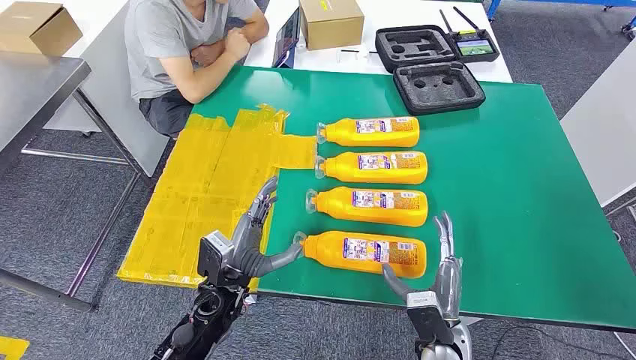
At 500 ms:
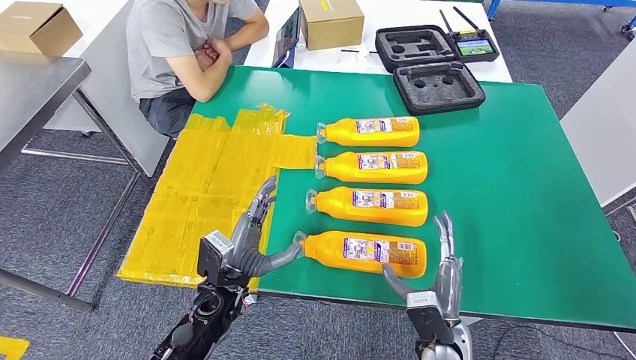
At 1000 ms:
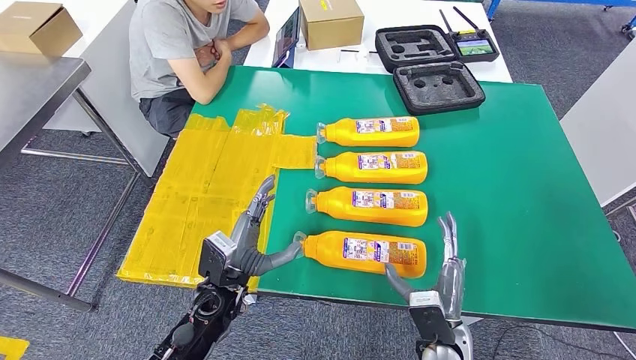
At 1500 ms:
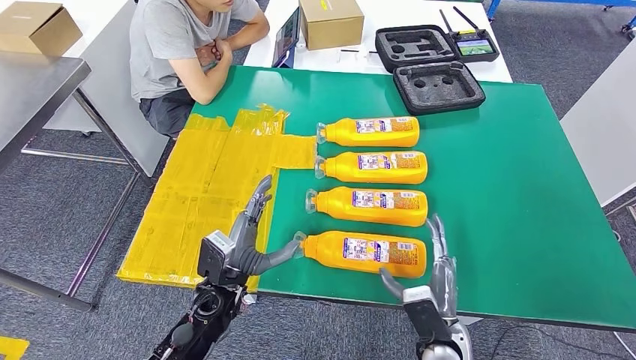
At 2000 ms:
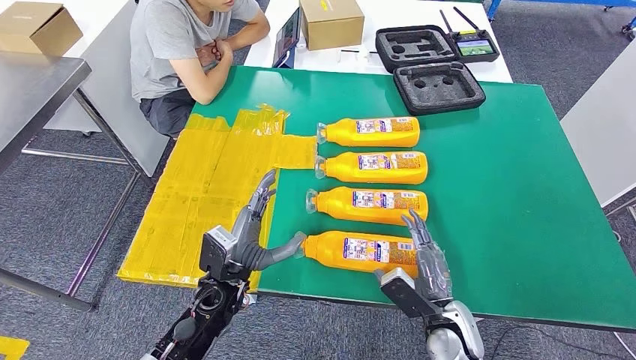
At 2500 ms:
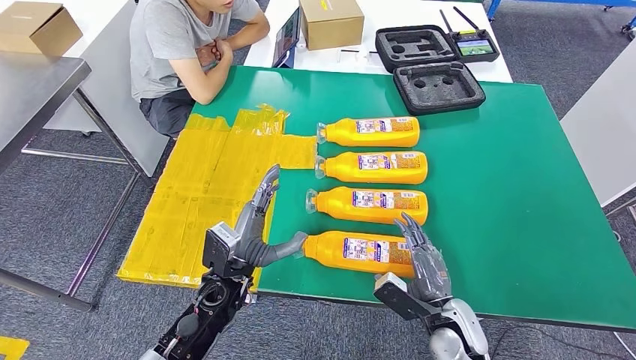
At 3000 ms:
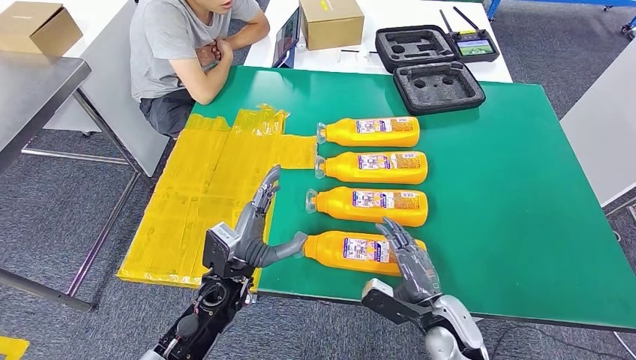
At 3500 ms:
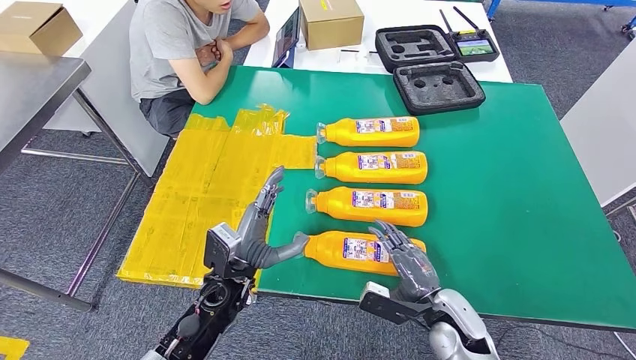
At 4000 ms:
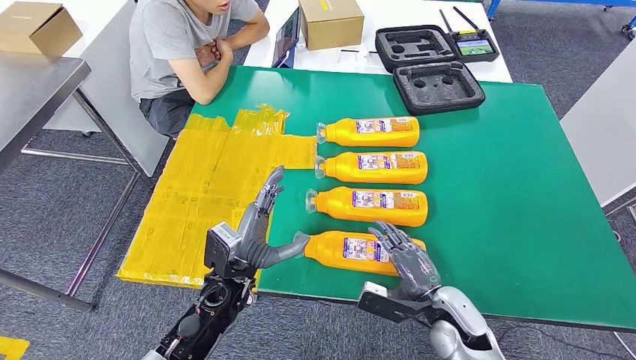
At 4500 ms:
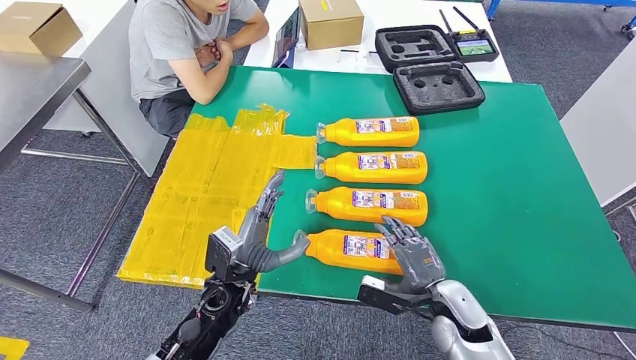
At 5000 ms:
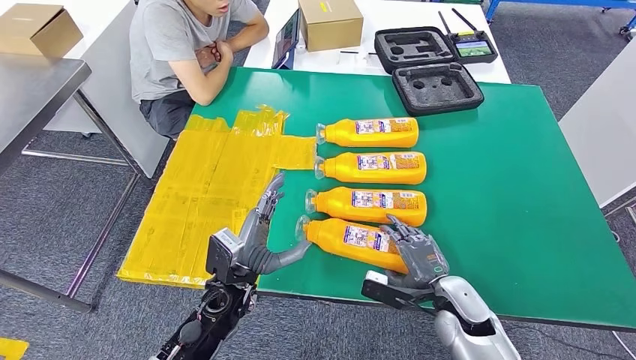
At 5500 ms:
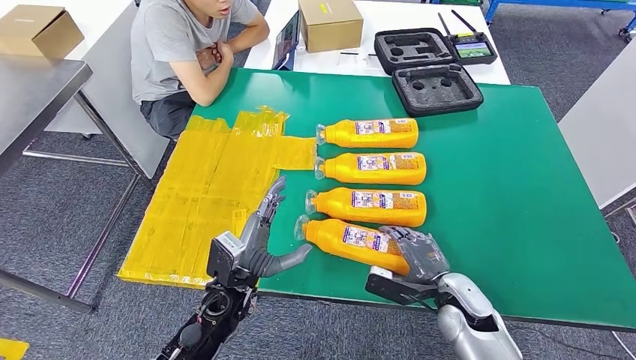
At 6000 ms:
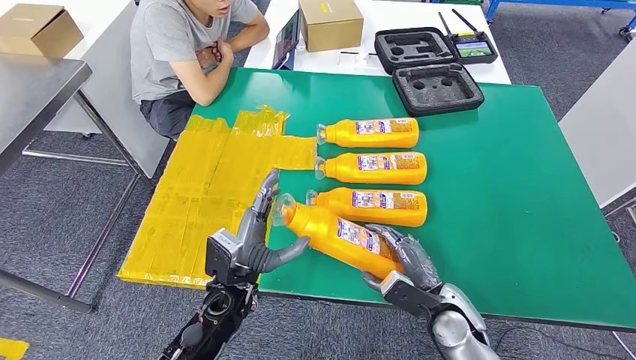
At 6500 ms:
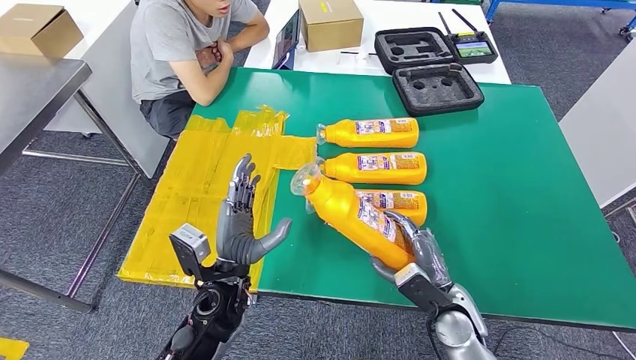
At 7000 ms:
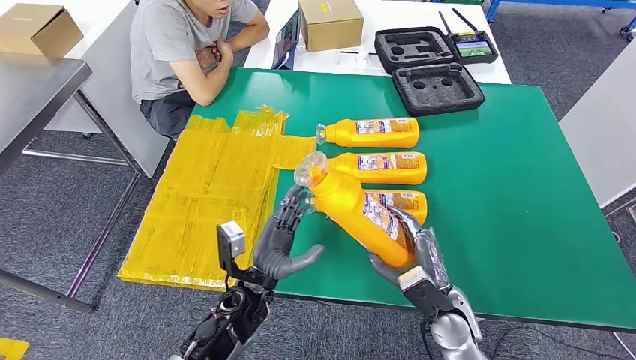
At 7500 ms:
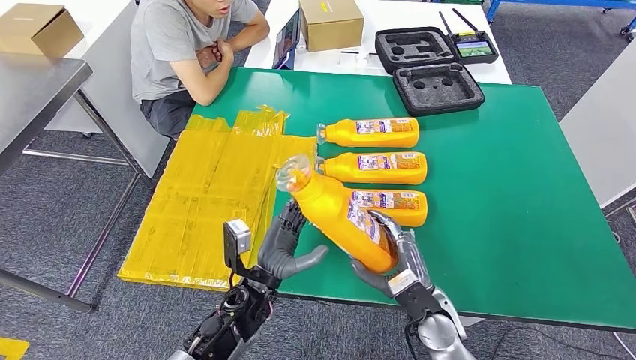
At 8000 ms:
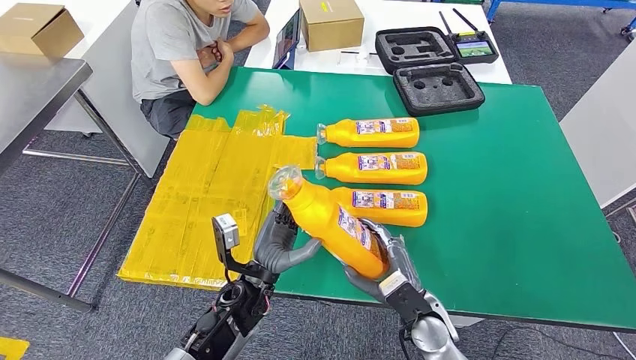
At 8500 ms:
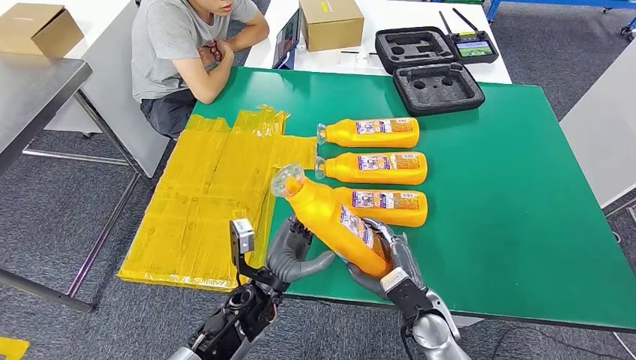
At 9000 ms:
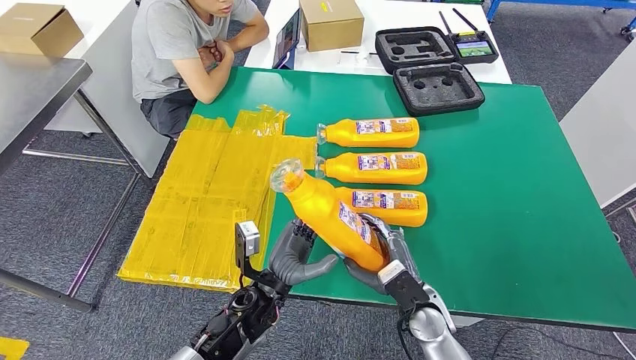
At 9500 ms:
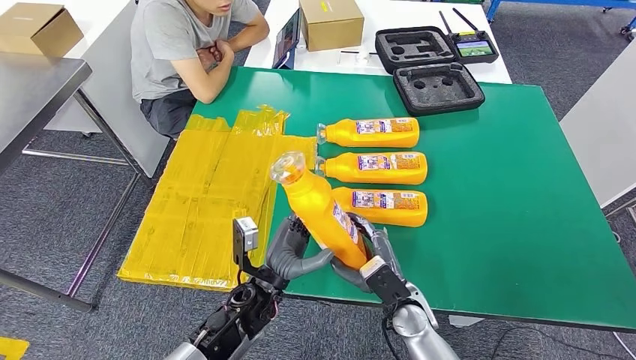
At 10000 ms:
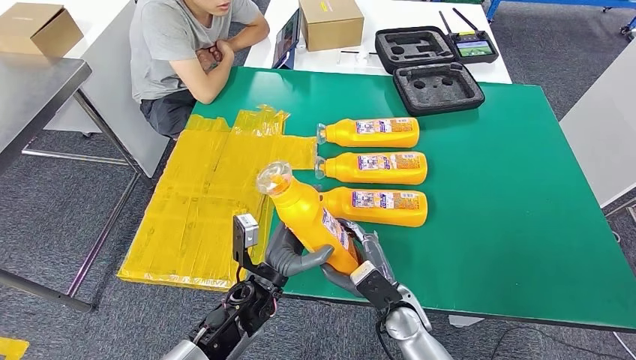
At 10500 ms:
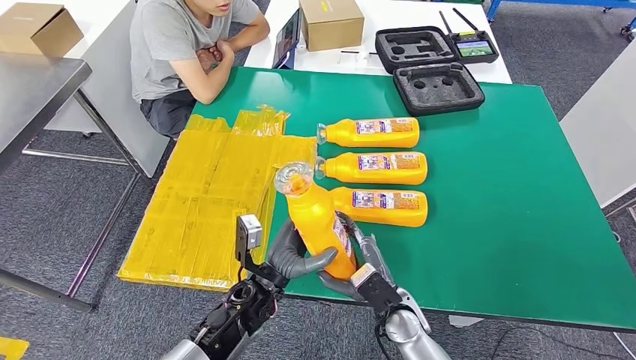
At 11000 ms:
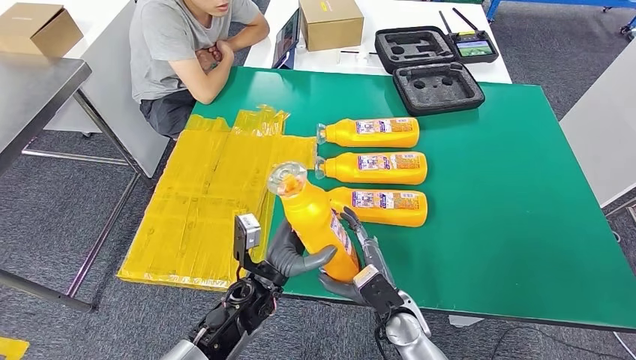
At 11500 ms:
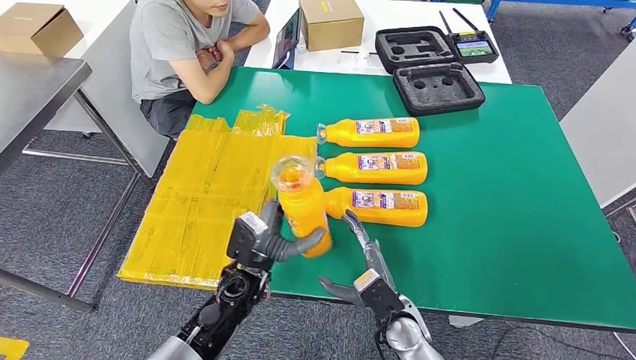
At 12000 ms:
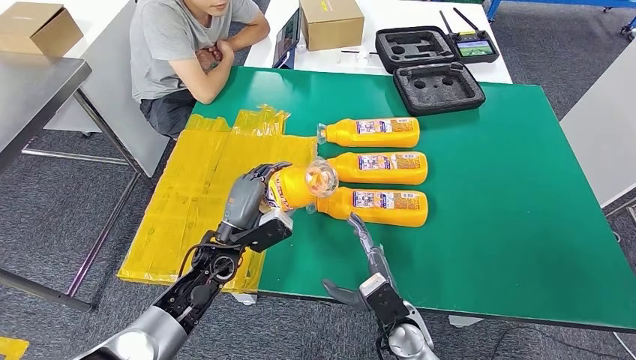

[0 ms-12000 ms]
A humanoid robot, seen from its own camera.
Step, 0 ms to 9500 ms: Take the fast-moving consumer goods bottle from the table.
8000 ms to 10000 ms: The hands make only small movements.
10000 ms to 12000 ms: The left hand travels to the left and forward by about 10 cm.

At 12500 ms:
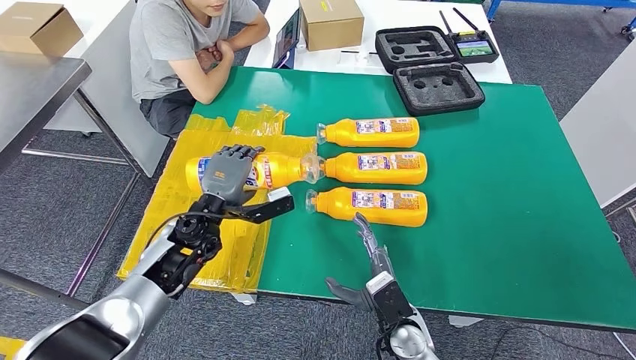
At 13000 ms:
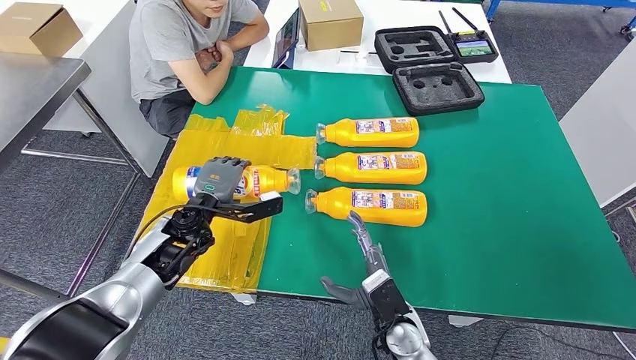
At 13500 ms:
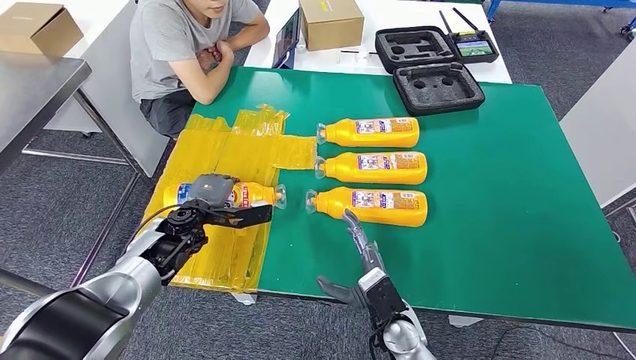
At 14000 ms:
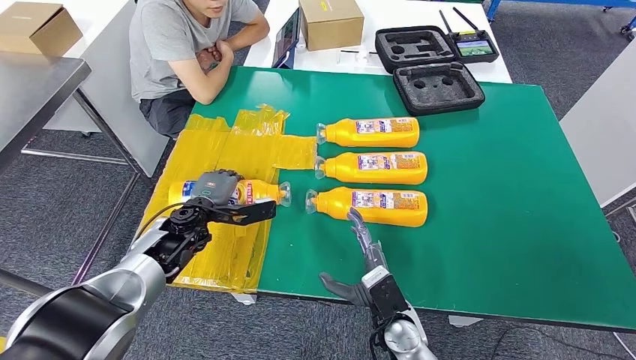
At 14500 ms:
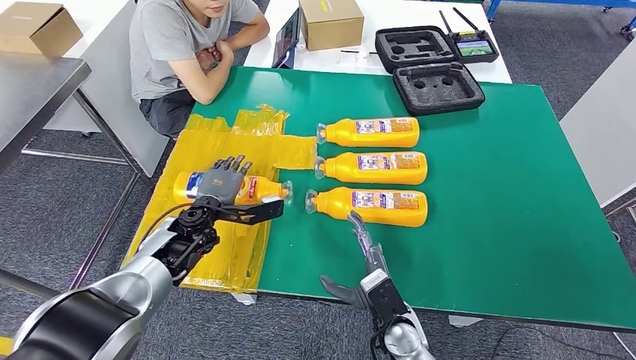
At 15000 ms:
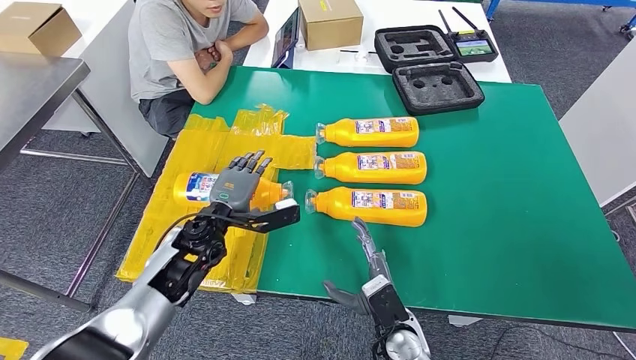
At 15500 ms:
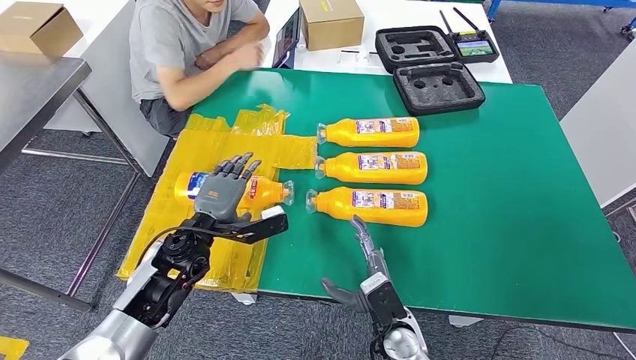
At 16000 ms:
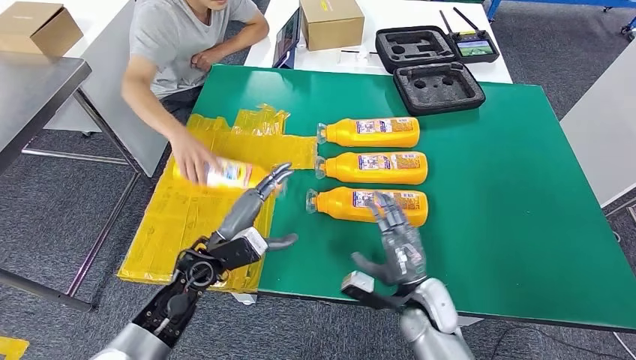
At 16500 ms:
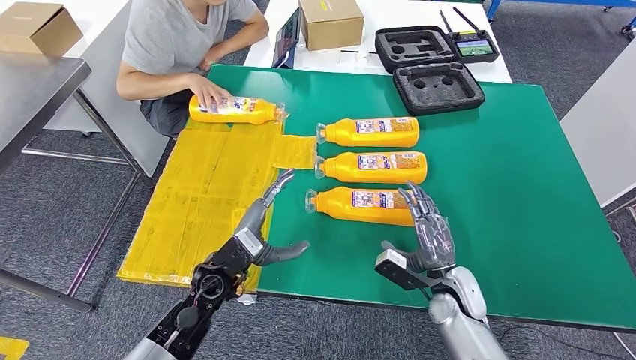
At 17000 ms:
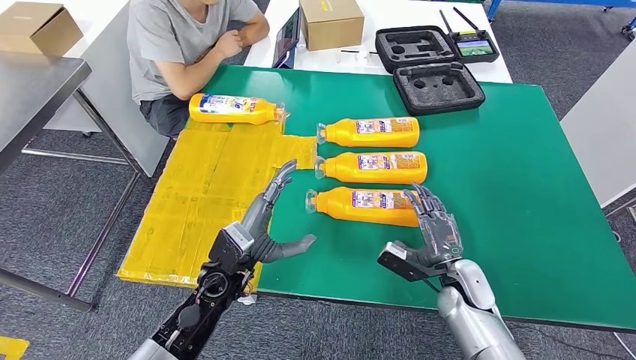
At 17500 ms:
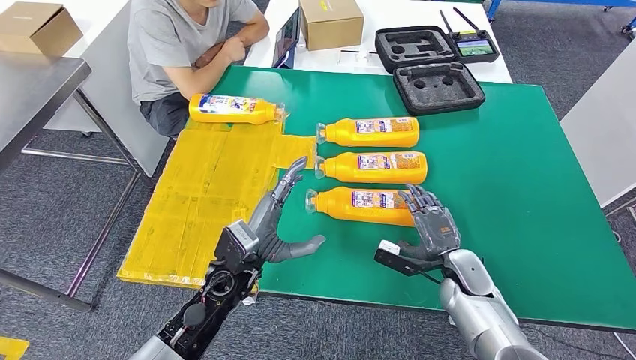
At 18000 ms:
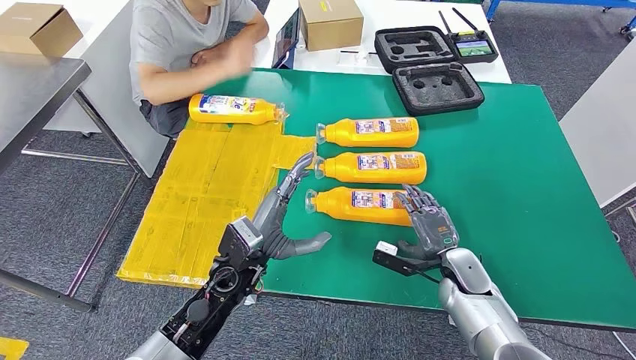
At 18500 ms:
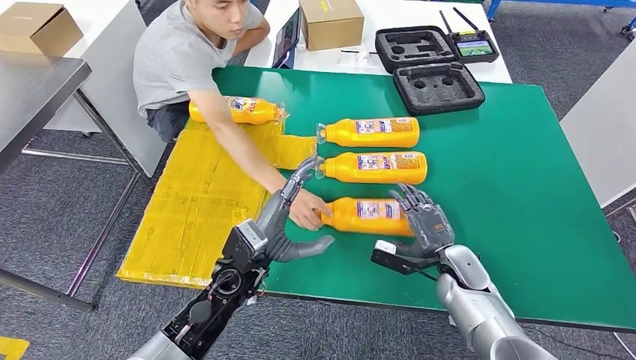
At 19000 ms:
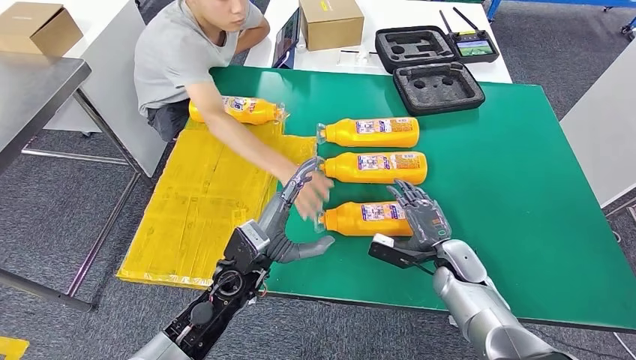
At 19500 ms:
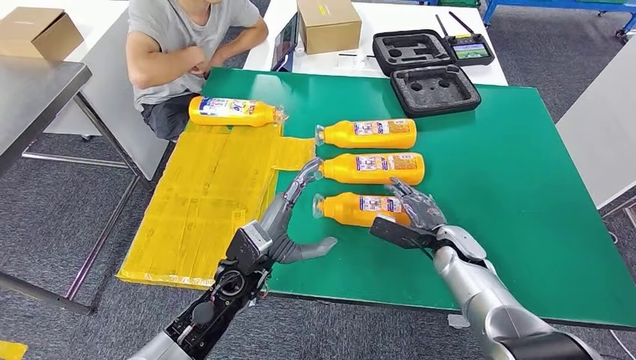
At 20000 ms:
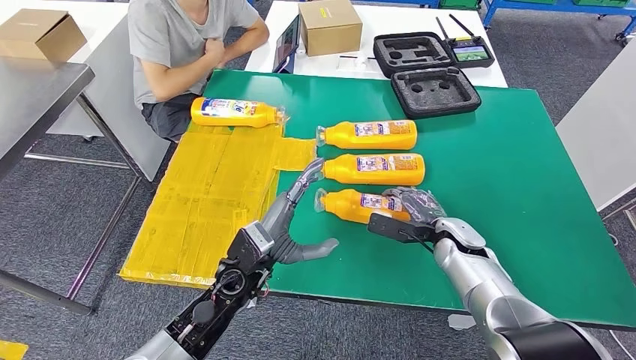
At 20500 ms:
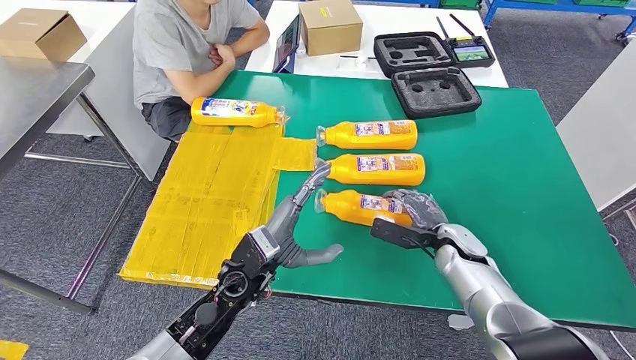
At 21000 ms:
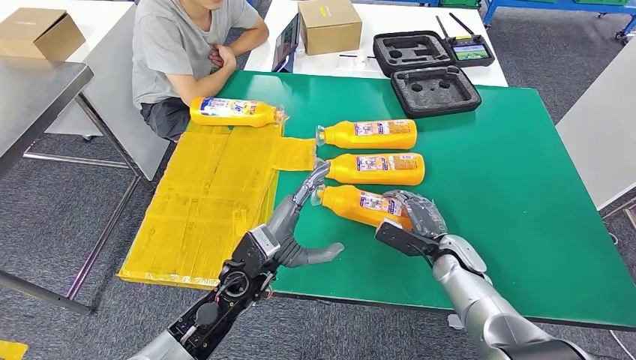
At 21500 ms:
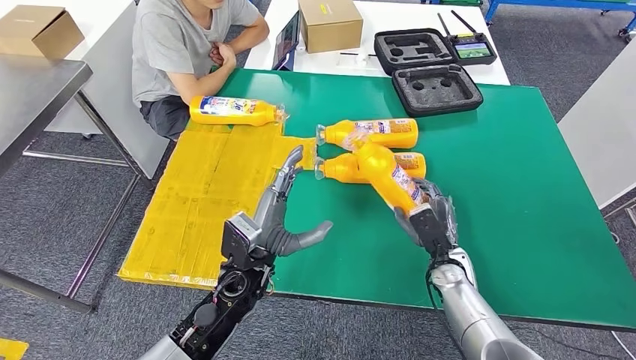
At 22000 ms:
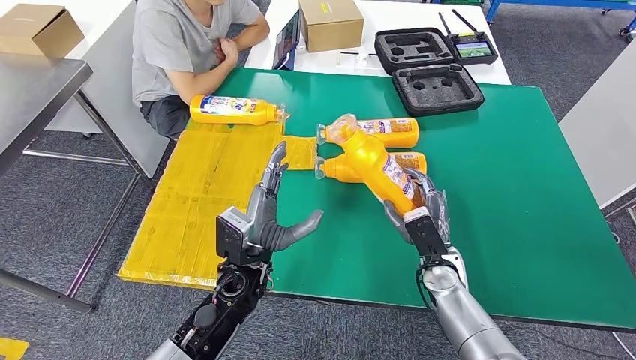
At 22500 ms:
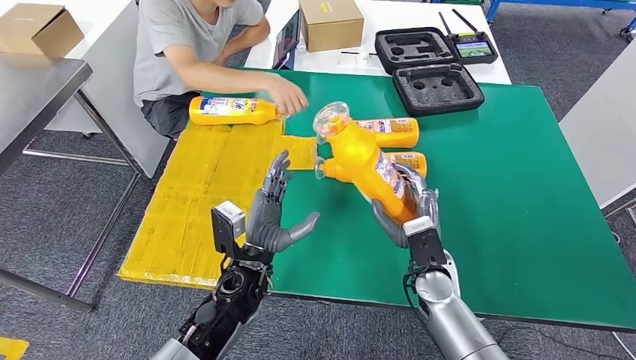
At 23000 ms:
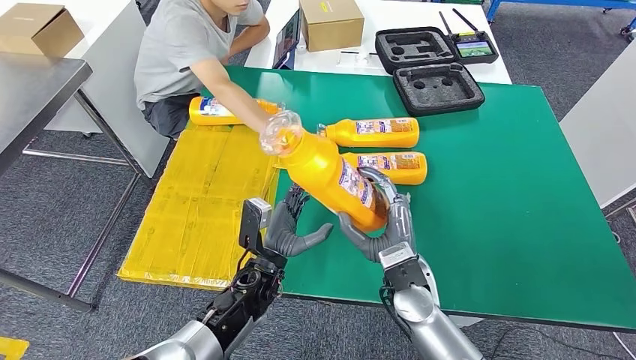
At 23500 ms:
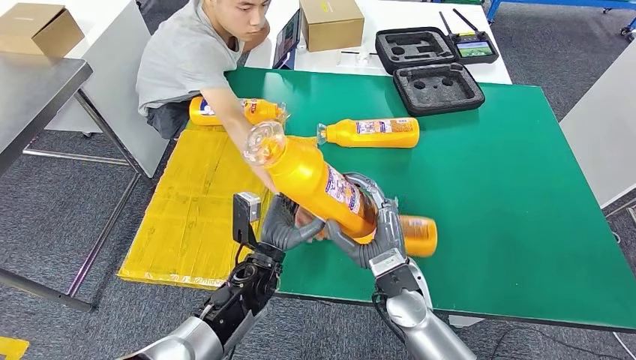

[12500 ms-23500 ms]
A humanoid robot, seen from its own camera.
Step, 14500 ms to 22500 ms: Pick up the fast-moving consumer goods bottle from the table.
14500 ms to 16000 ms: The left hand goes about 10 cm backward. The right hand goes about 5 cm to the right.
